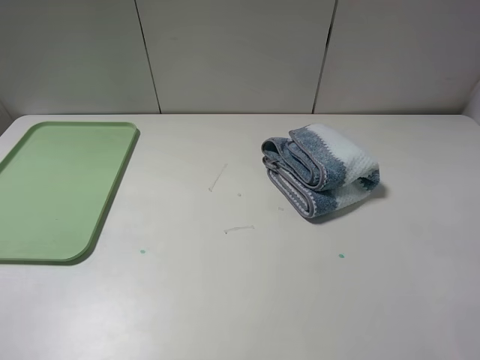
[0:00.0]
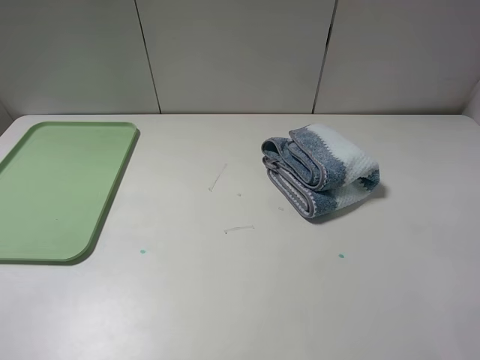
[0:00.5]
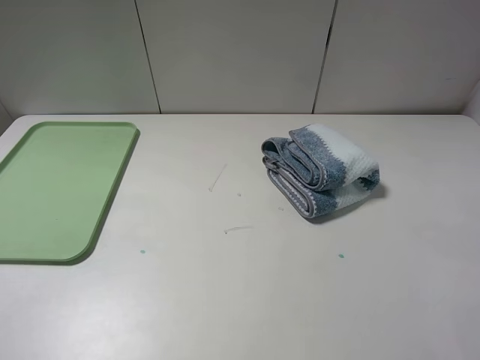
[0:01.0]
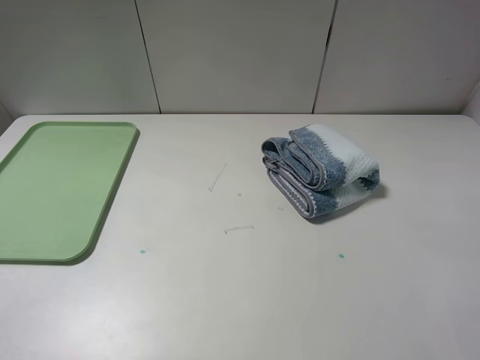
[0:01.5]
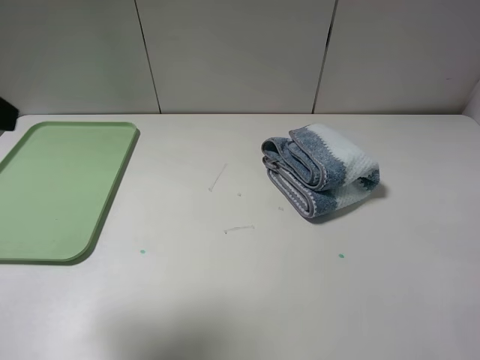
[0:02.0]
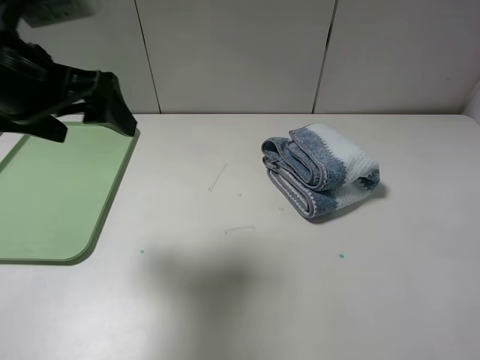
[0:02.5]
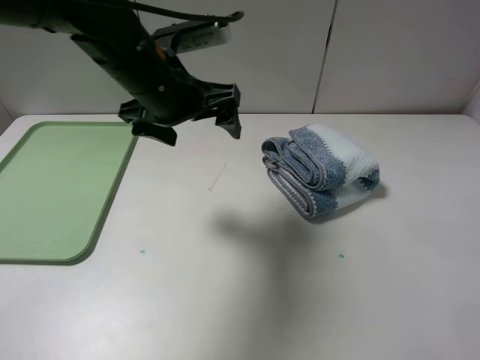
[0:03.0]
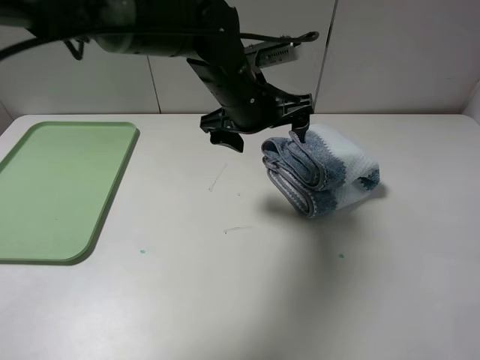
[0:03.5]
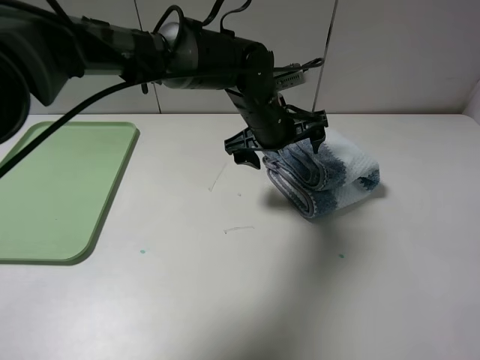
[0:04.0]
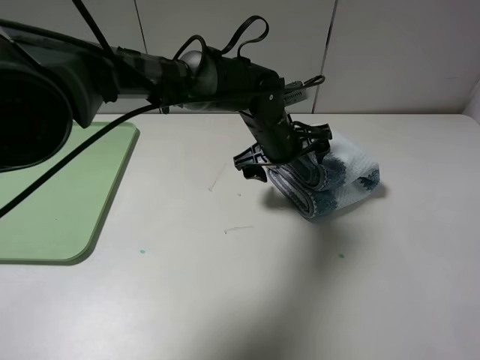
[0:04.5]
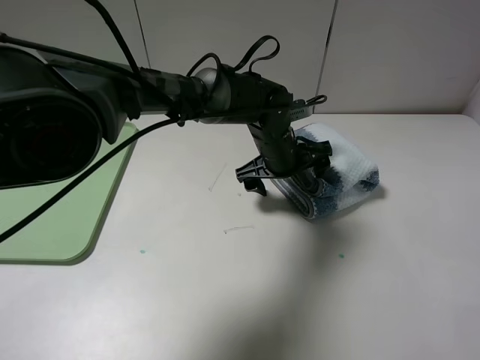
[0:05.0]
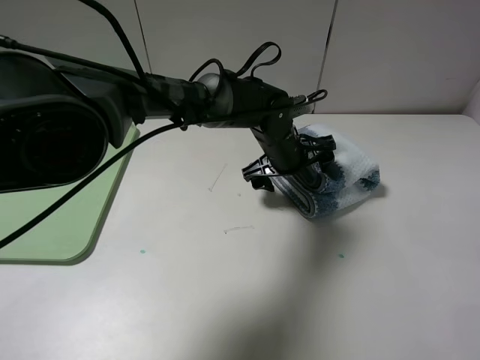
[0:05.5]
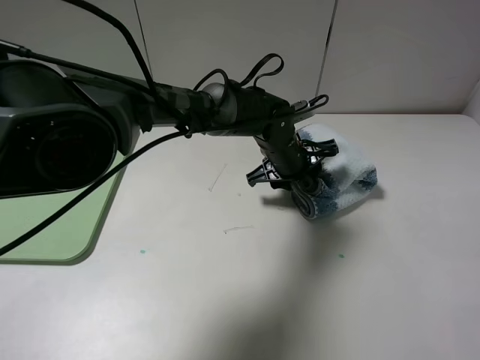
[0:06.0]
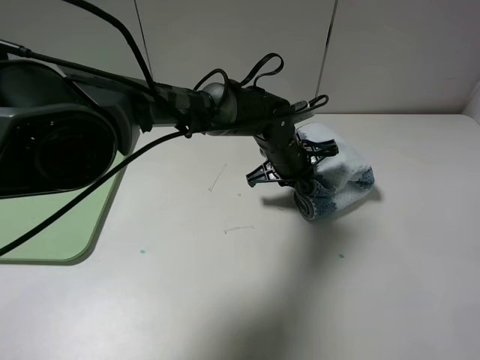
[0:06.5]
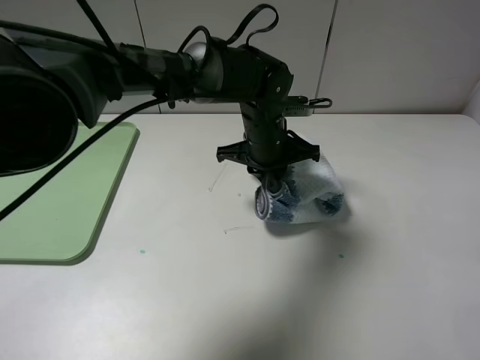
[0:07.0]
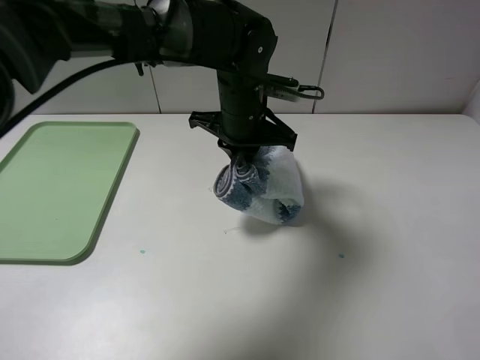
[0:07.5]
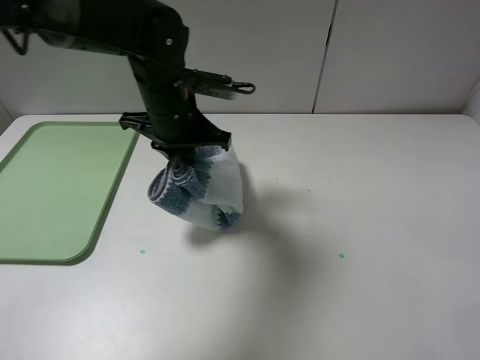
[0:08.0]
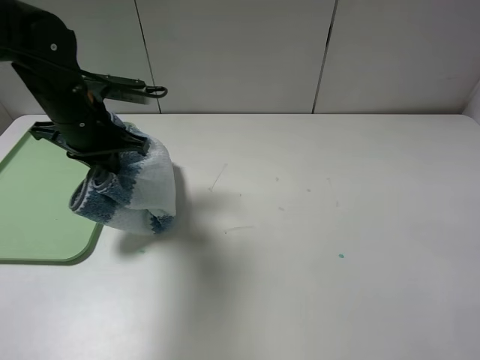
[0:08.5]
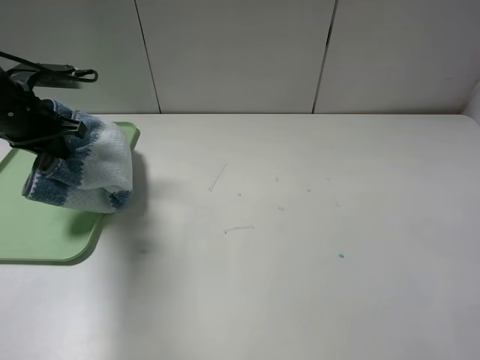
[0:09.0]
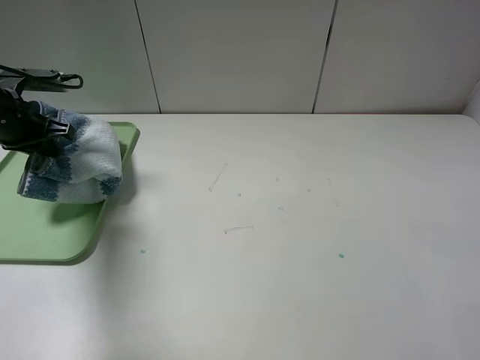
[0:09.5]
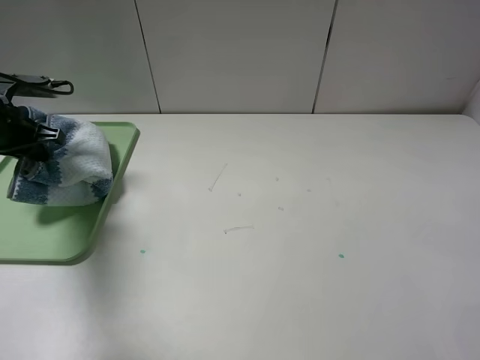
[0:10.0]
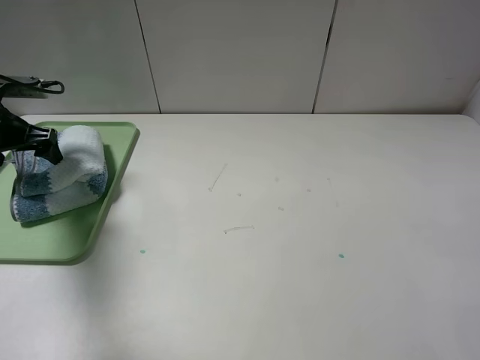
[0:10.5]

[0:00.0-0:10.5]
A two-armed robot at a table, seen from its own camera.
Step, 0:00.0 to 0:06.0: Grasp the blue white towel with the left gripper.
0:00.0 to 0:02.0: The left gripper travels forward and upward by roughly 20 cm.
0:02.0 to 0:04.0: The left gripper moves to the right, forward and downward, approximately 40 cm.
0:04.0 to 0:06.5: The left gripper shifts some 5 cm downward, and closes up.
0:06.5 to 0:08.5: The left gripper is displaced to the left by some 30 cm.
0:08.5 to 0:10.5: The left gripper goes roughly 15 cm to the left, and opens.

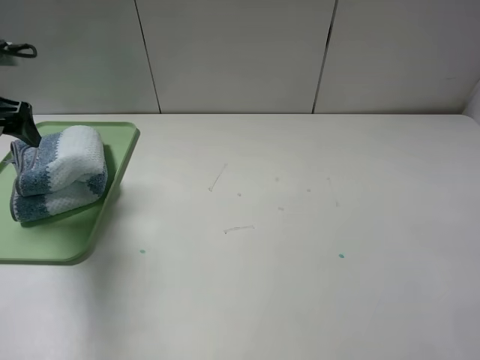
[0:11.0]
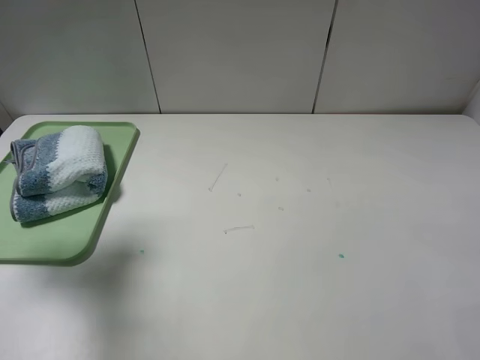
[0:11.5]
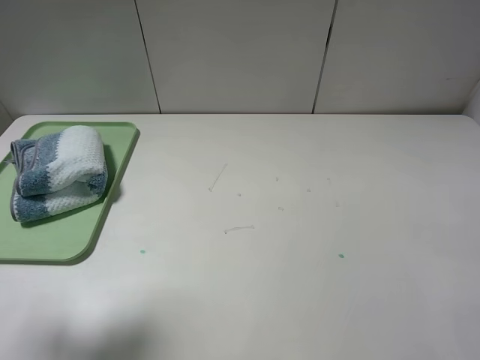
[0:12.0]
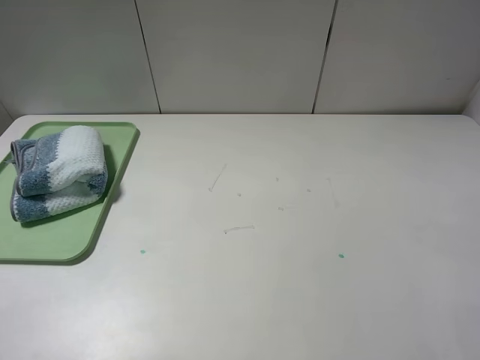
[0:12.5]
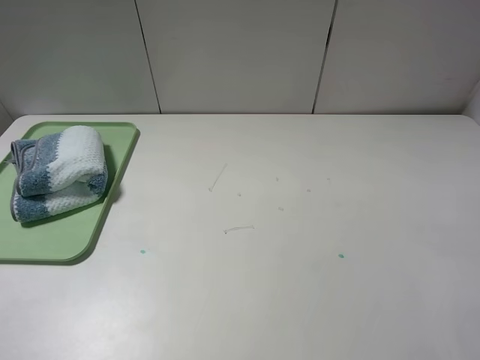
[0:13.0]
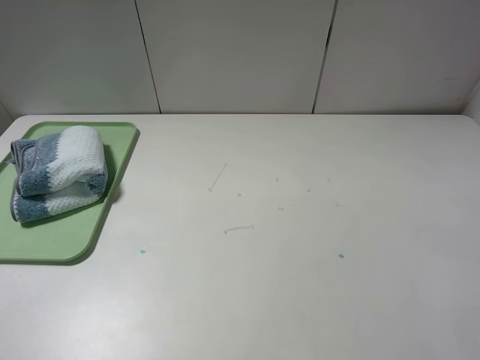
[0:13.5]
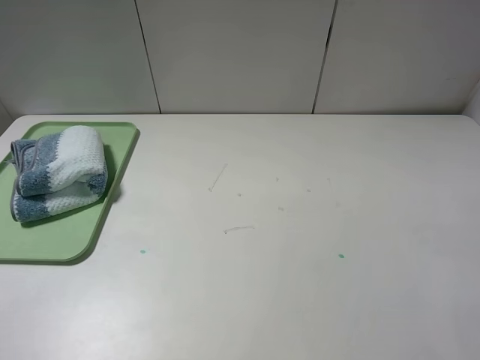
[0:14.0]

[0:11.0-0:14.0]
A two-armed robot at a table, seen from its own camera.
0:11.0 to 0:12.5: The left gripper is displaced backward by some 25 cm.
